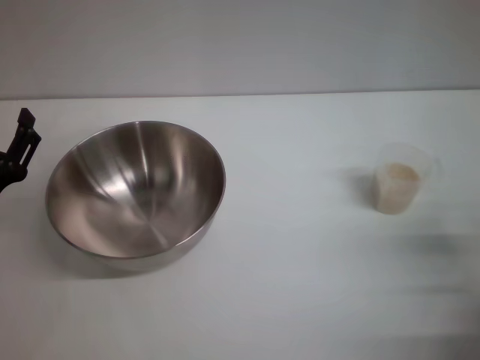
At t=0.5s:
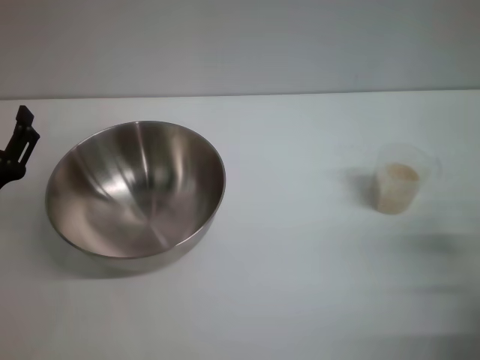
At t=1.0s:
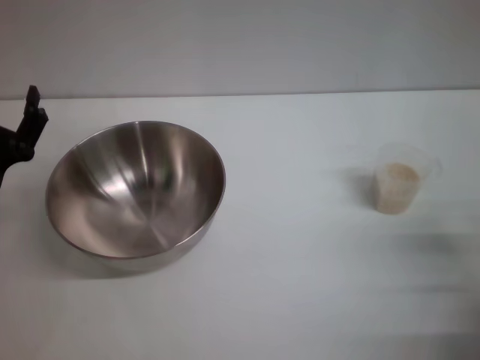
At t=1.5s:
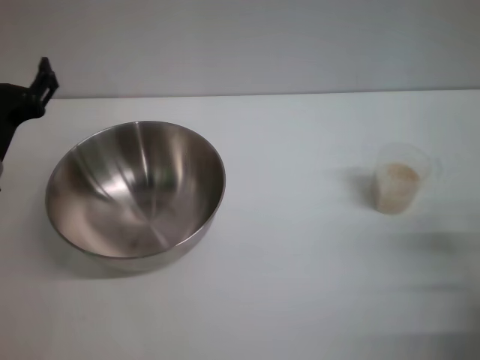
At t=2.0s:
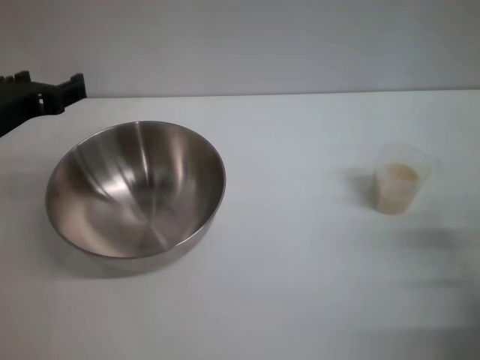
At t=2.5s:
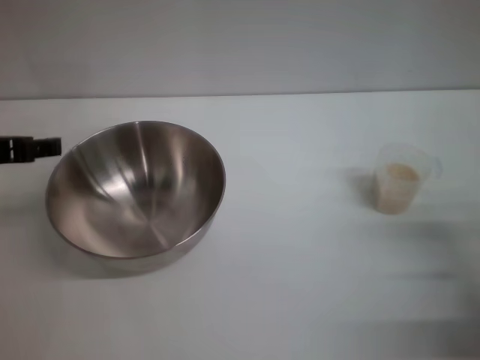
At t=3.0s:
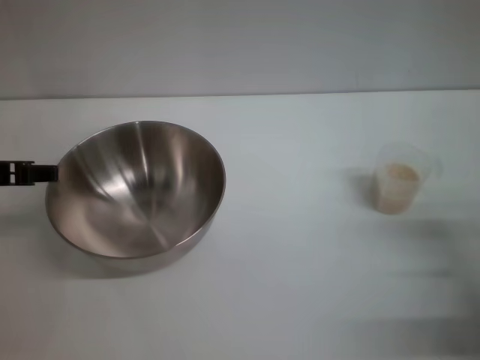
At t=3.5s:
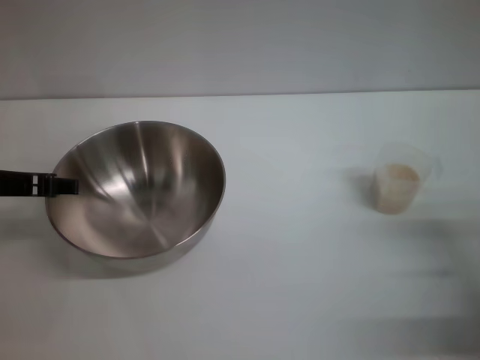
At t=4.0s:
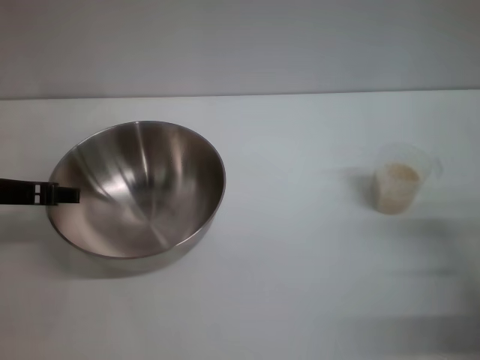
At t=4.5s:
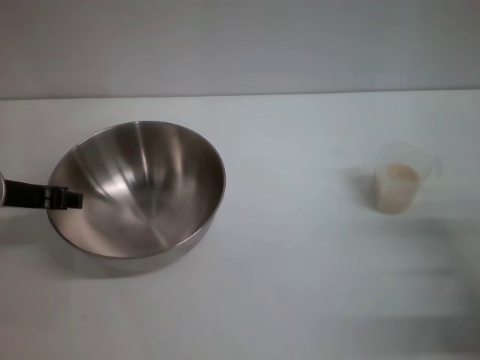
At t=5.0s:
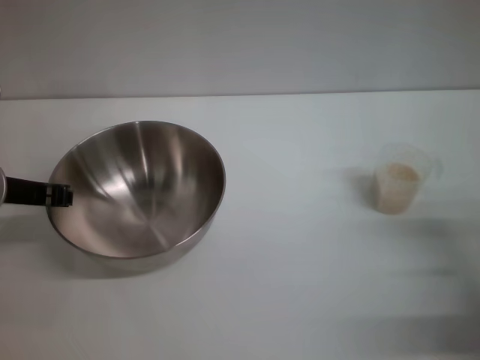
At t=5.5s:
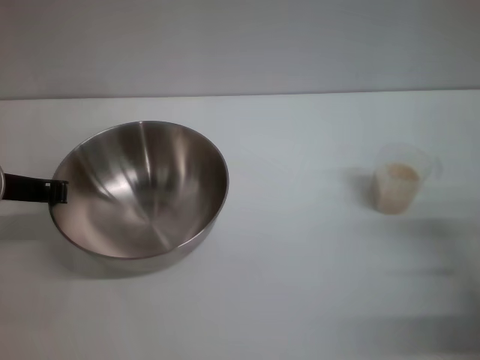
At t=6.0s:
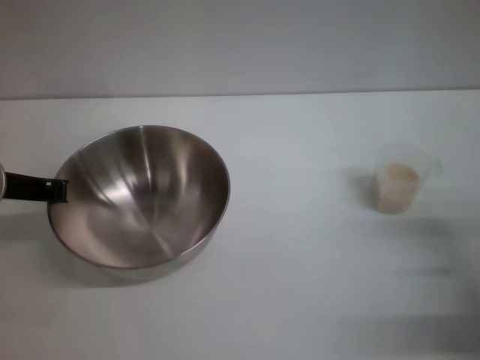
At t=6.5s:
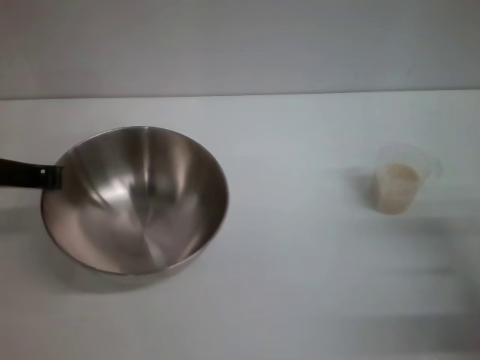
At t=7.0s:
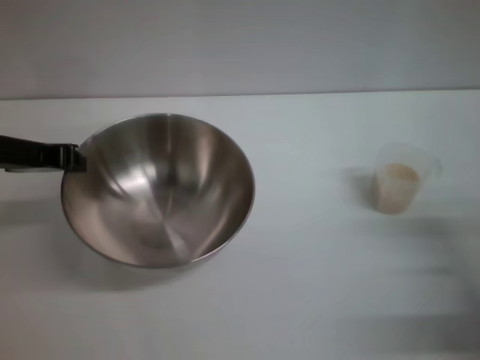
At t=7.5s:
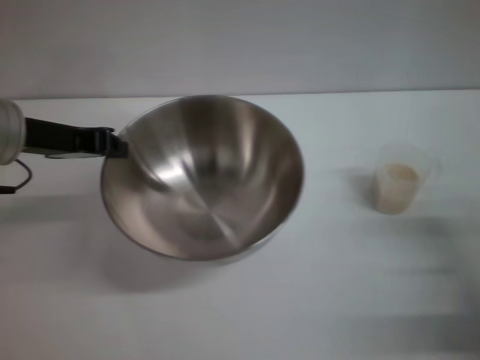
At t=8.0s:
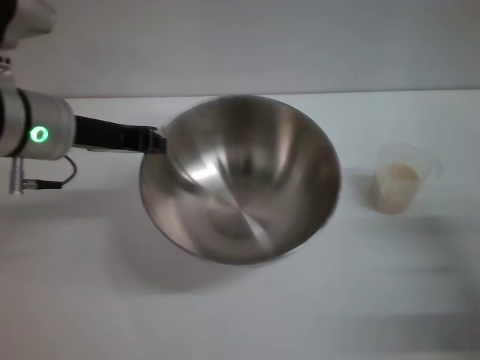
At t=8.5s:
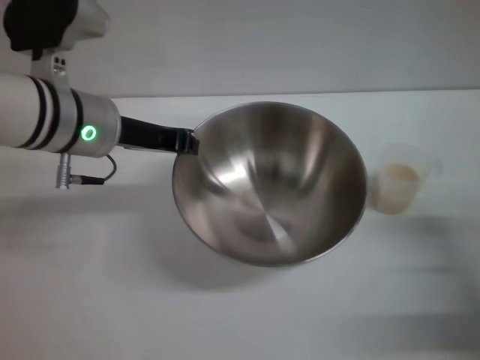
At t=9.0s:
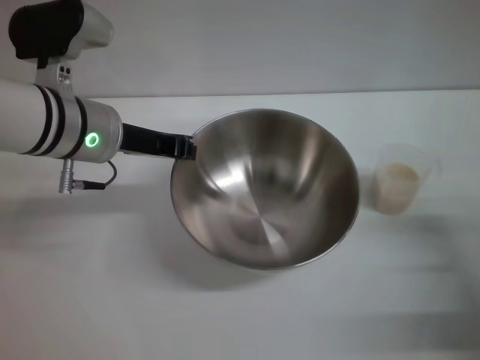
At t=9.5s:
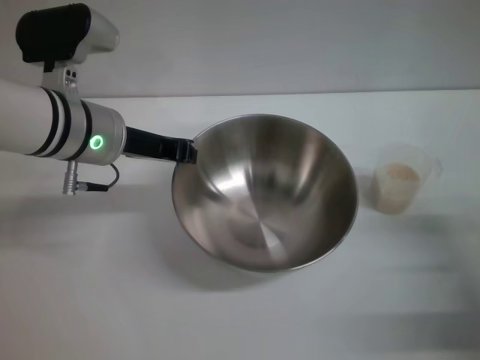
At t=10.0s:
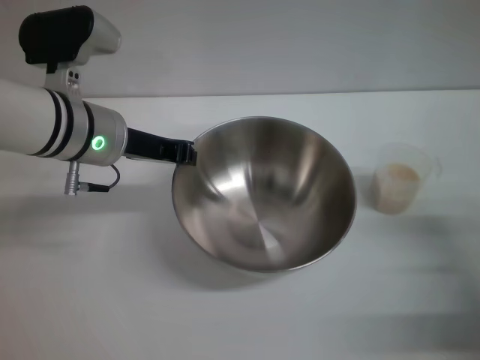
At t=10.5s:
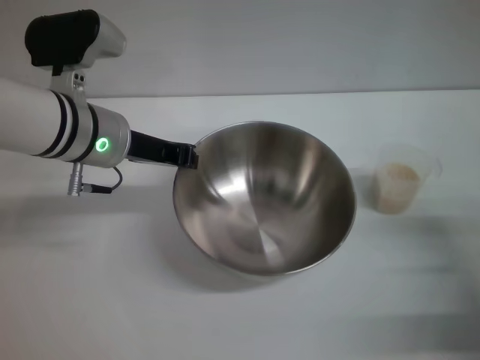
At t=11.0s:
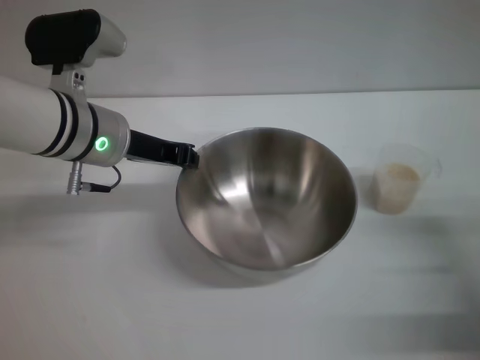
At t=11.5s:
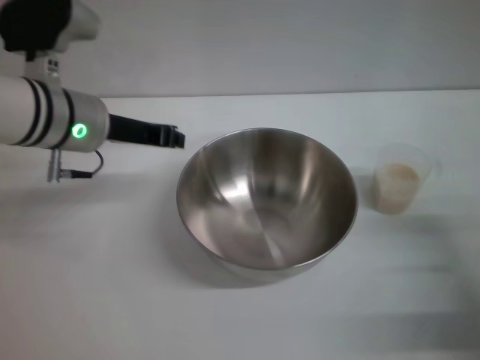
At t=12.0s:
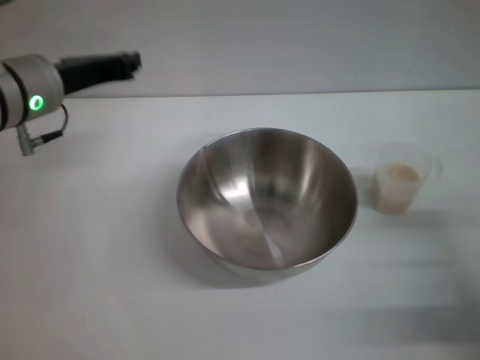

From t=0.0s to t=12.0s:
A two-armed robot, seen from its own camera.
Task of the whole recording: Place the bowl in the middle of the table with one hand and pour the rice from the grain cup into it with the other hand.
Step, from t=0.0s to t=7.0s: Pick up the bowl with the left gripper.
Step, from t=7.5s to t=11.5s: Place the bowl in the center of view with the left gripper.
From t=0.0s to t=2.0s: The left gripper moves upward and forward, some 15 cm.
From t=4.0s to t=6.0s: The left gripper closes.
From t=6.0s to t=8.0s: The left gripper moves to the right, roughly 5 cm.
From t=8.0s to t=10.0s: The left gripper ends up approximately 5 cm from where it was.
From t=10.0s to t=12.0s: The left gripper changes place by about 5 cm.

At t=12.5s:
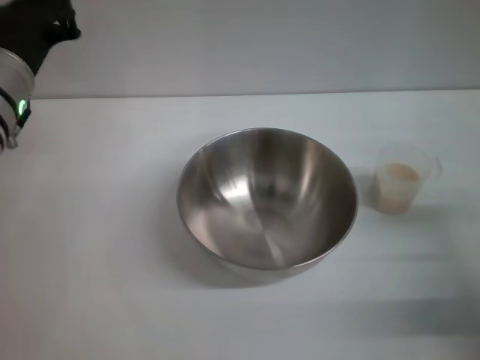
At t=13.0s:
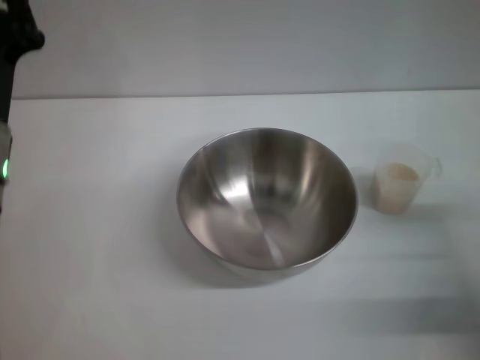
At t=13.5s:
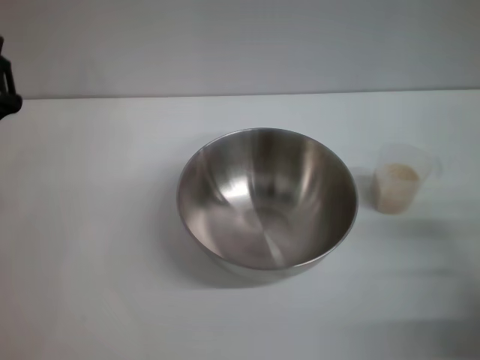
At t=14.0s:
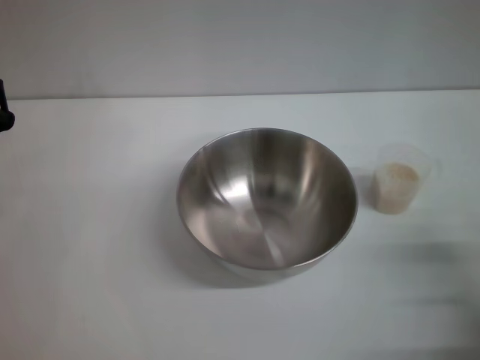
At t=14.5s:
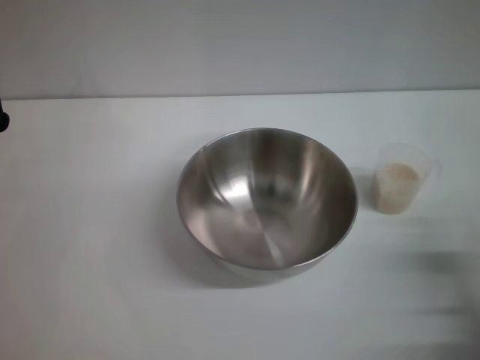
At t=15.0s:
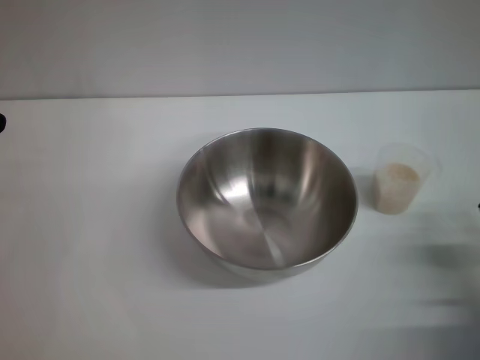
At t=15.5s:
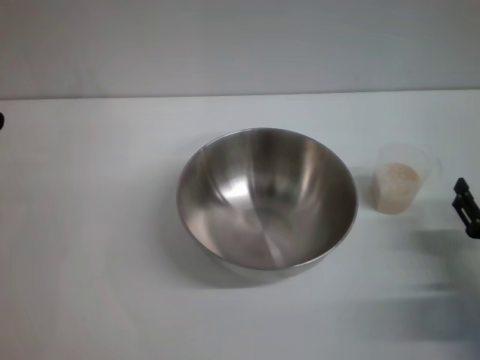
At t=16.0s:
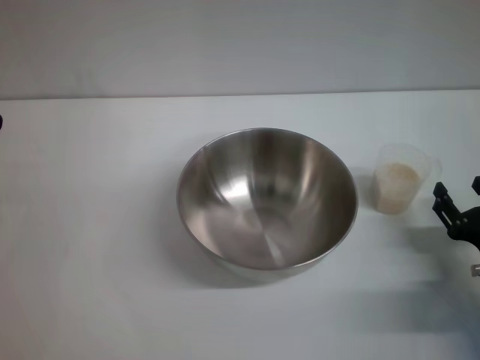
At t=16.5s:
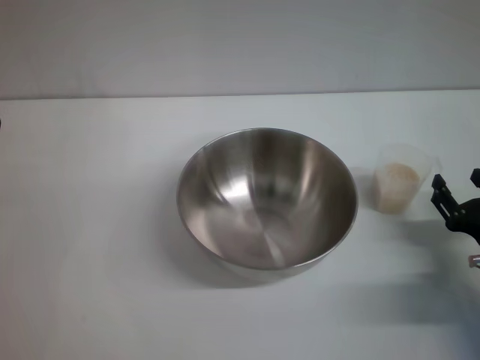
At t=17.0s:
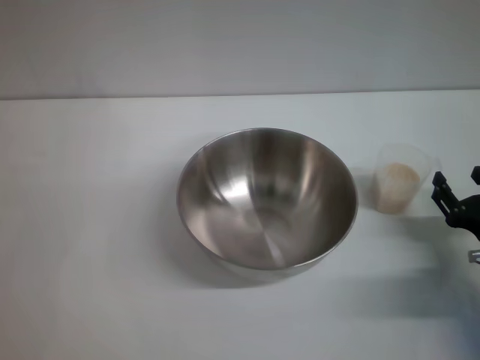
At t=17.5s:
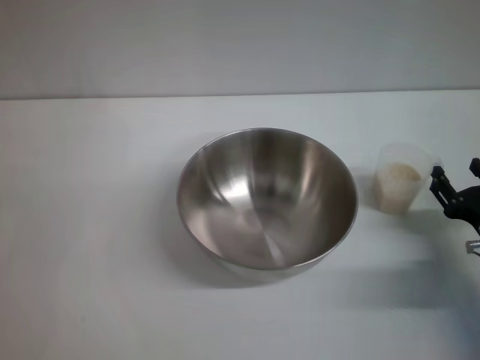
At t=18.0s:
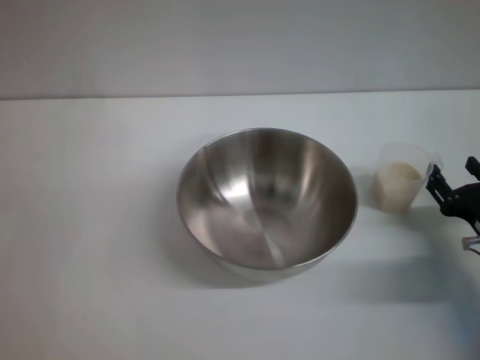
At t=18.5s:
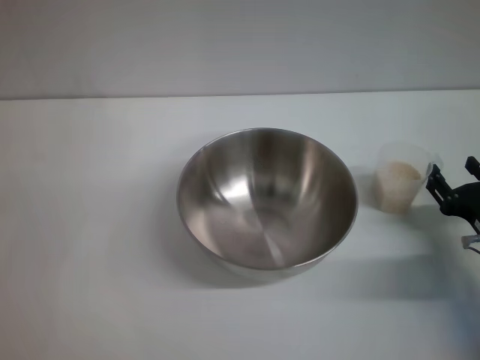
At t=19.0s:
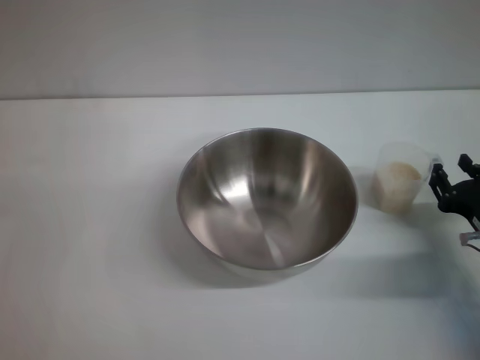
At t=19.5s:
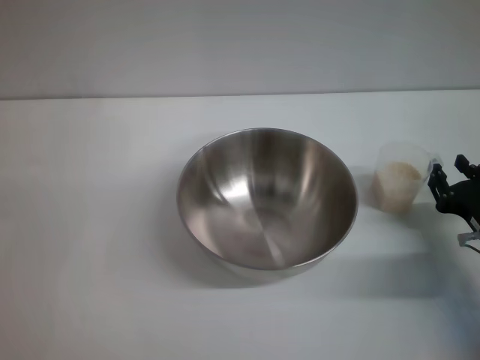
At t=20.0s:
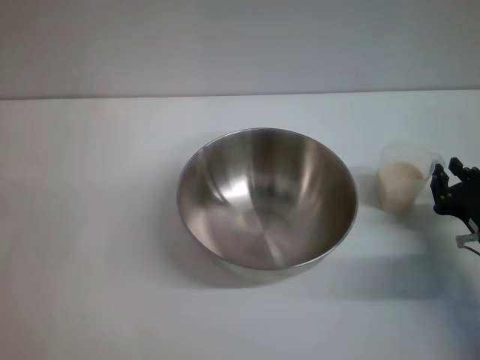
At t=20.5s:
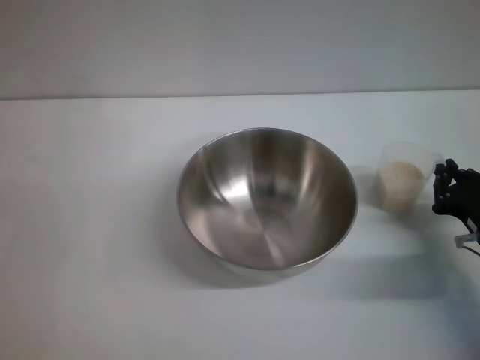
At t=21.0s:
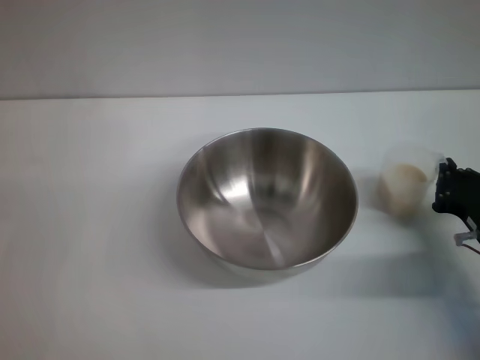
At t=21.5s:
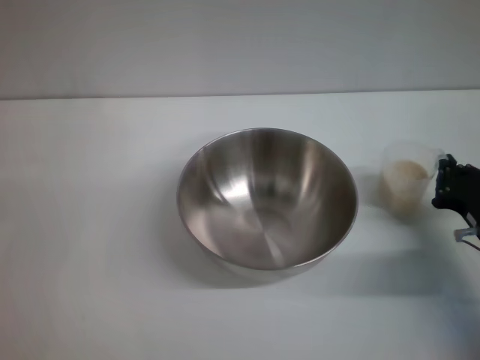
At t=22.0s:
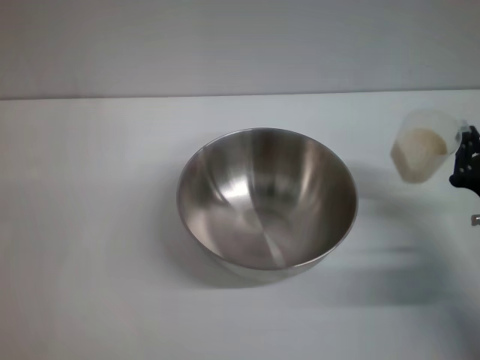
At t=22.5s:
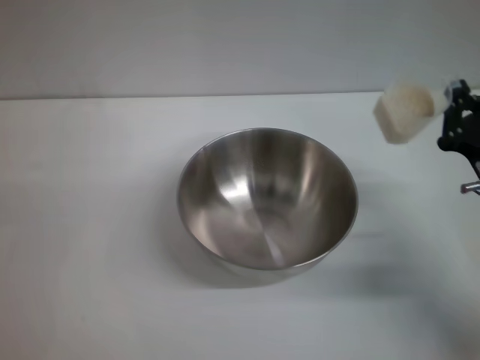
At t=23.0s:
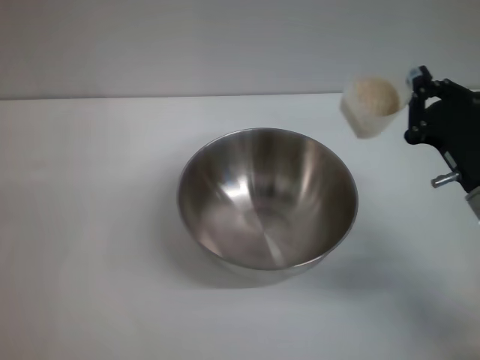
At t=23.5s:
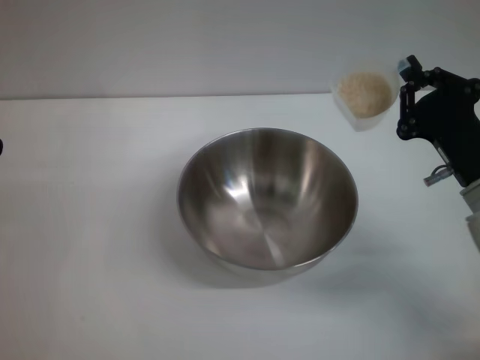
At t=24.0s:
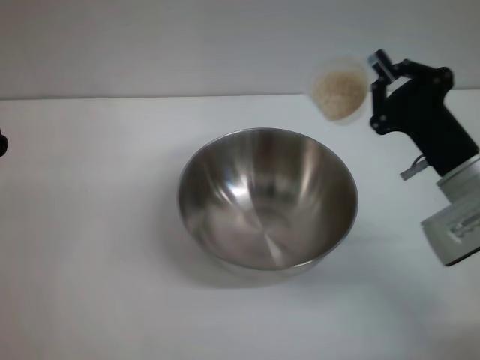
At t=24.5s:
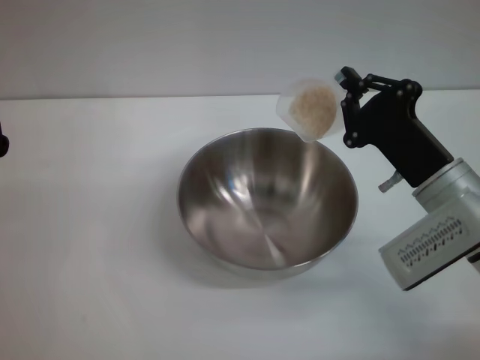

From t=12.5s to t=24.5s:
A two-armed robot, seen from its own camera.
Task of the whole recording: Place the bowl in the middle of the table with one hand and pour the rice from the grain cup into it with the other hand.
Step, from t=12.5s to t=22.0s: Pick up the cup with rice in it with the right gripper.
From t=12.5s to t=14.5s: The right gripper heads backward, covering roughly 5 cm; the left gripper shifts roughly 15 cm backward and downward.
From t=14.5s to t=16.5s: The right gripper moves forward, approximately 5 cm.
From t=16.5s to t=18.5s: The grippers make only small movements.
From t=18.5s to t=20.5s: The right gripper closes its fingers.
From t=20.5s to t=22.5s: The right gripper heads upward, covering about 5 cm, and closes.
From t=22.5s to t=24.5s: The right gripper moves to the left, some 5 cm.

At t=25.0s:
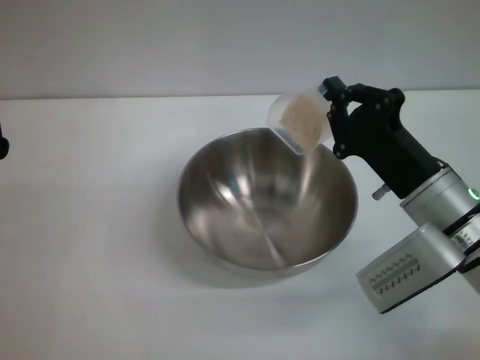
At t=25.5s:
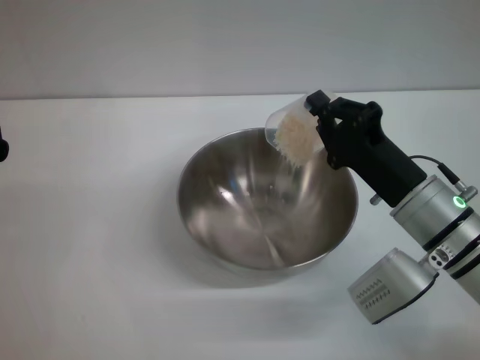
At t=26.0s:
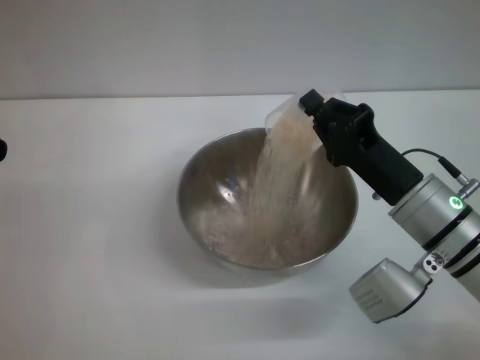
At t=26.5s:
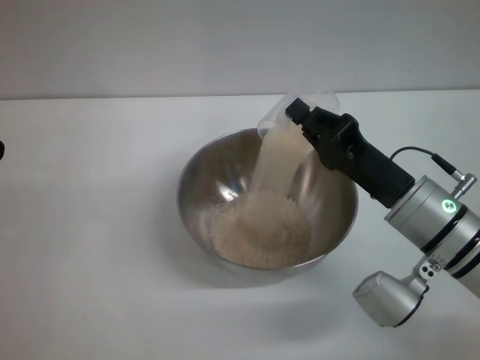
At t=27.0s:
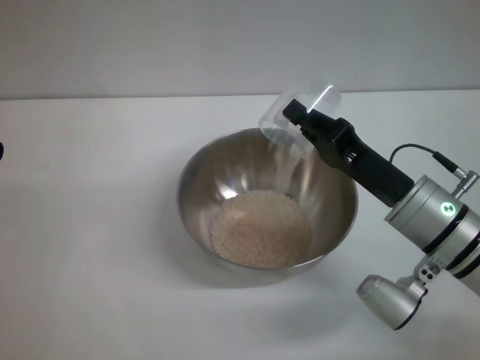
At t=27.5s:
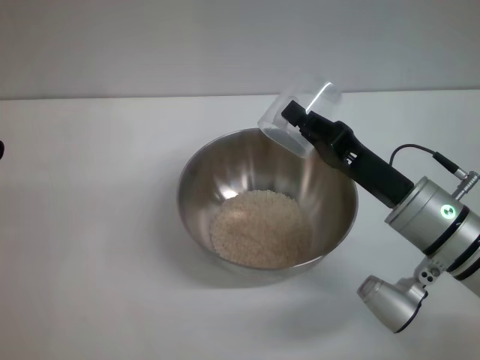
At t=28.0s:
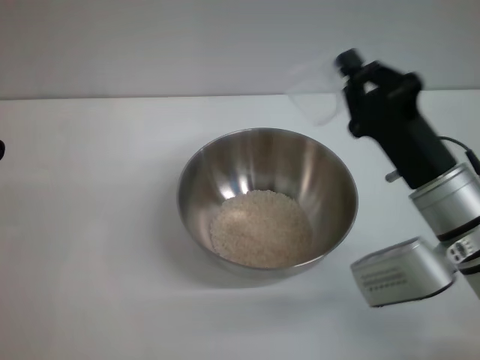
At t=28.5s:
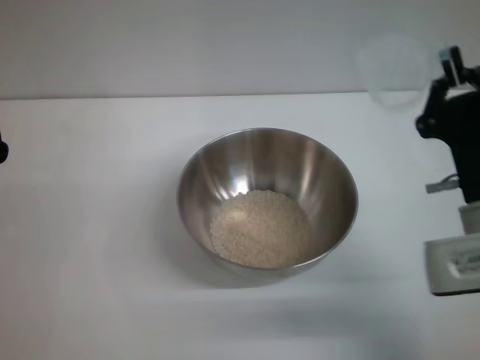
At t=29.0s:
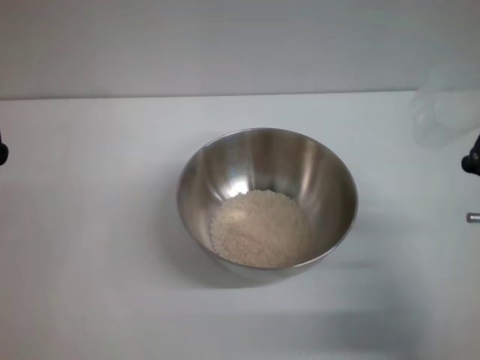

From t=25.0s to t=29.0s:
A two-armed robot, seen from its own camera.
Task of the whole recording: Place the bowl in the middle of the table with one hand and pour the rice from the grain cup into it with the other hand.
Step, from t=25.0s to t=27.5s: Pour the rice from the cup into the bowl with the right gripper.
From t=27.0s to t=29.0s: The right gripper shifts roughly 5 cm backward.
